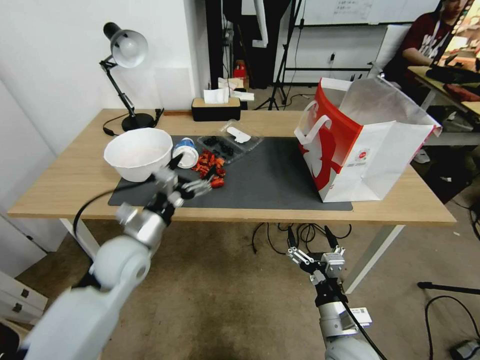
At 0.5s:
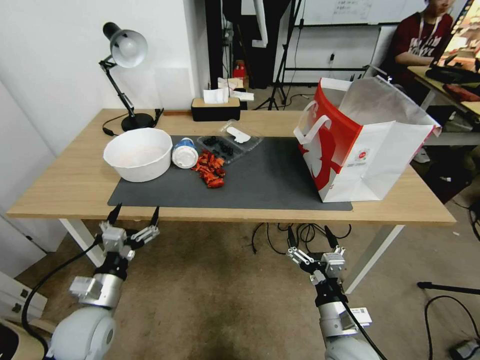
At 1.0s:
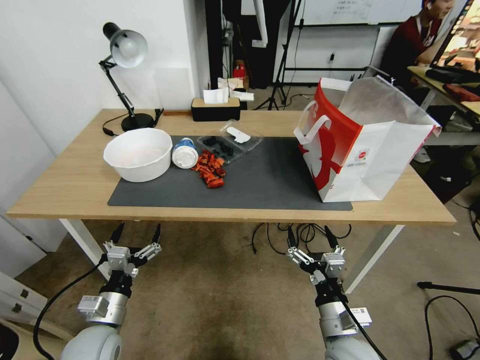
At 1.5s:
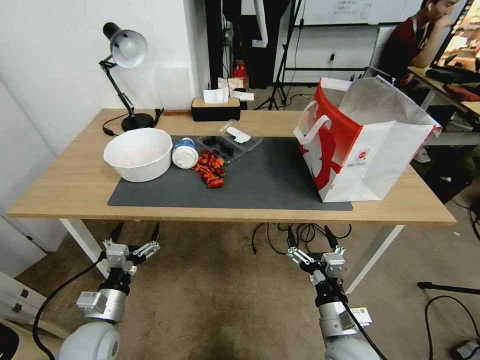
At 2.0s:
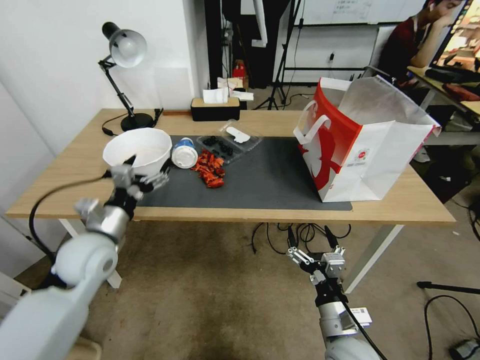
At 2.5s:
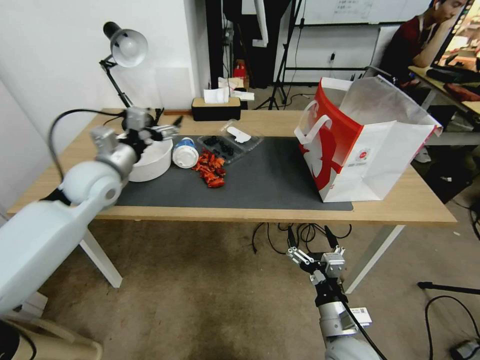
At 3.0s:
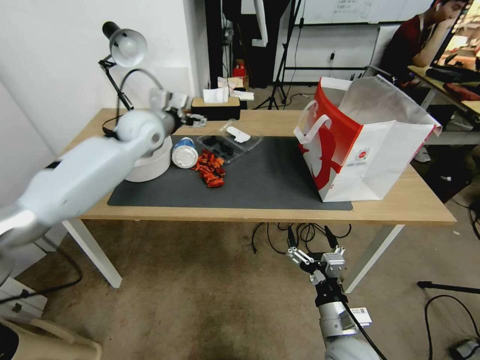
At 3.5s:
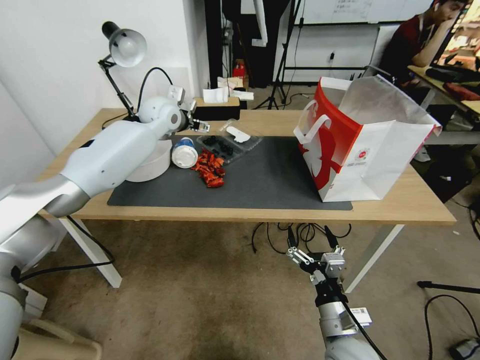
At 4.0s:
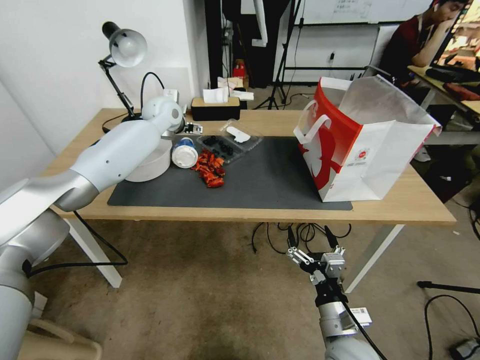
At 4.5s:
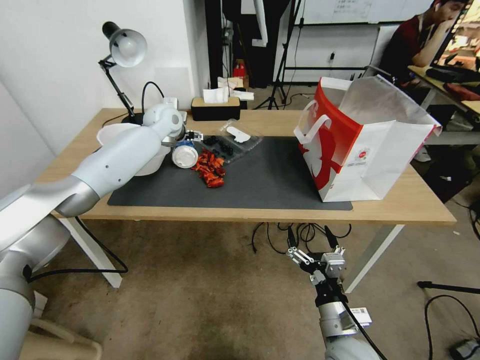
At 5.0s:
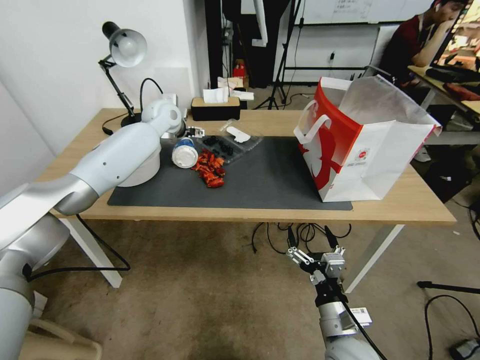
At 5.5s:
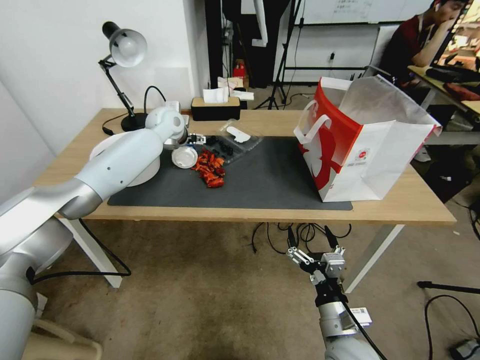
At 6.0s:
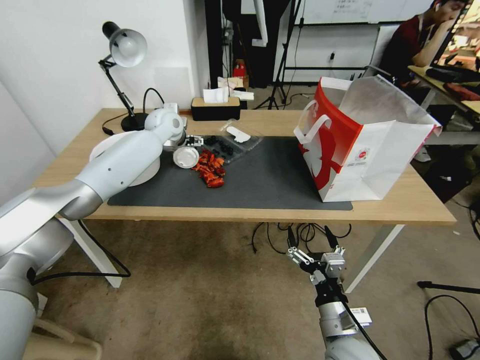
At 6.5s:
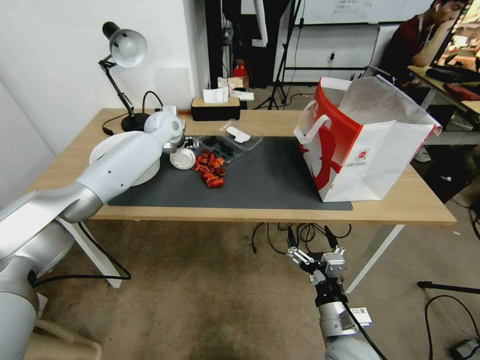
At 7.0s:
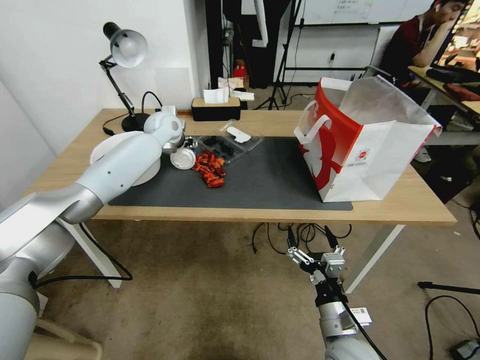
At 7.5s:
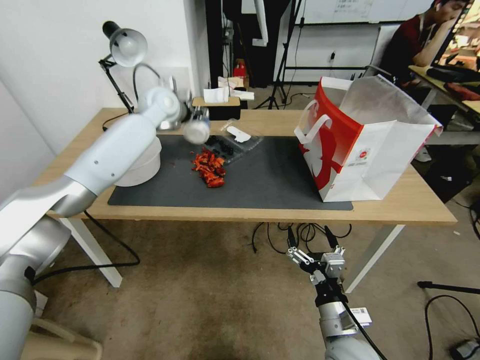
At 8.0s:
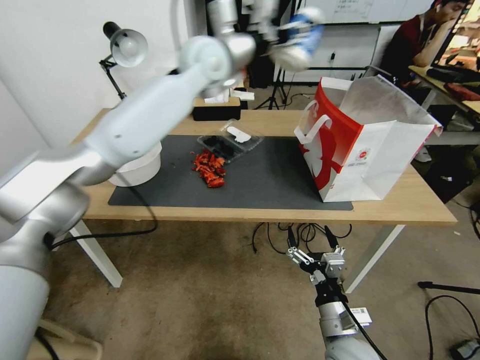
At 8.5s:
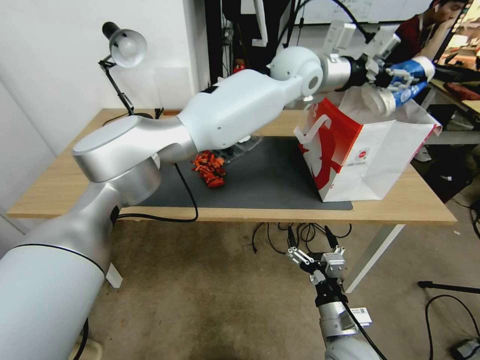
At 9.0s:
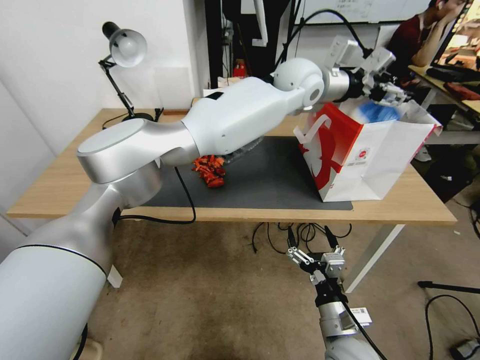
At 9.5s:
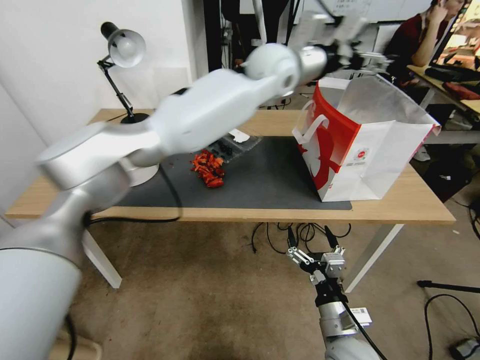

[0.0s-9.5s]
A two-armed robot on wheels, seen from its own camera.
0.0s to 2.0s: The left gripper goes approximately 5 cm to the left, and reaches some 10 cm downward, then returns.
2.0s to 4.0s: The left gripper goes some 35 cm forward and upward.
4.0s to 5.5s: The grippers stay close to where they were, moving slightly.
5.5s to 7.5s: The left gripper goes roughly 10 cm upward, and closes up.
7.5s to 9.5s: The left gripper goes some 25 cm to the right, and opens its fingers.

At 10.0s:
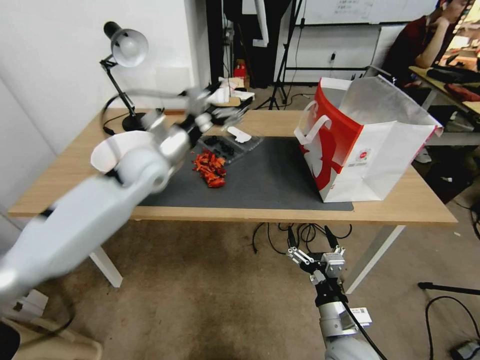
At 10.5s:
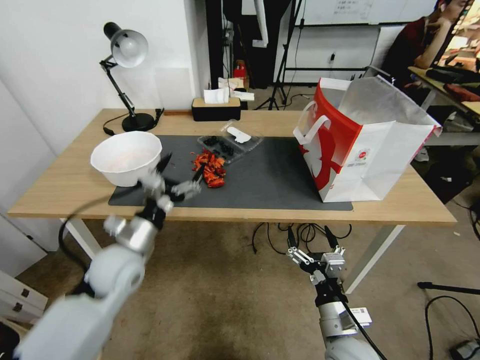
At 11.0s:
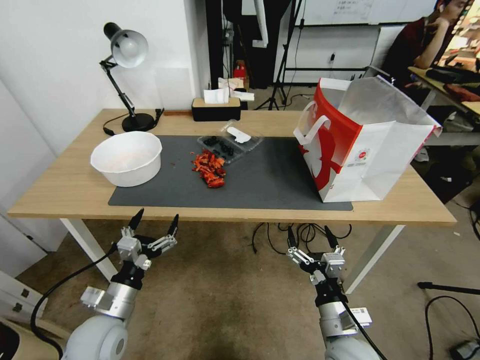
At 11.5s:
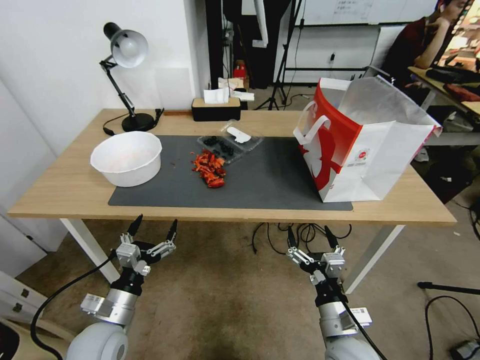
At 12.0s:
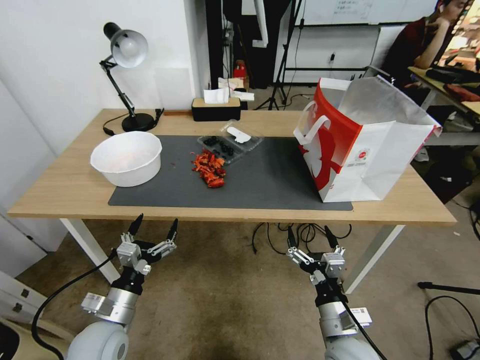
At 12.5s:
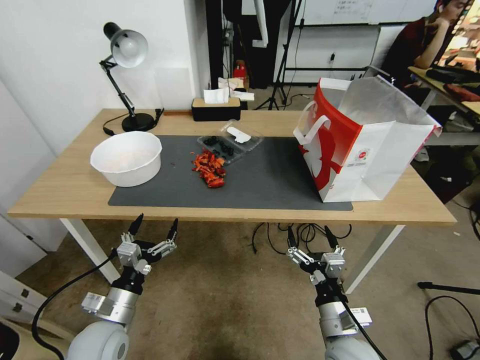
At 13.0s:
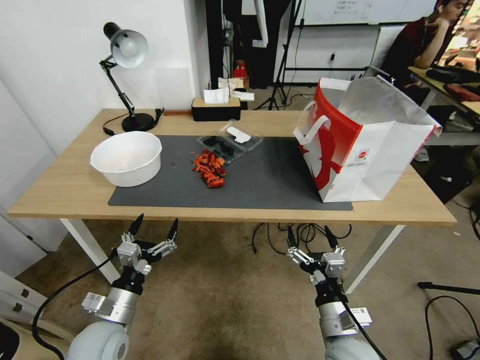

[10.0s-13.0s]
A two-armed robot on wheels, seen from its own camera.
10.0s to 11.5s: The left gripper heads backward and downward, covering approximately 35 cm.
11.5s to 13.0s: Both grippers stay put.

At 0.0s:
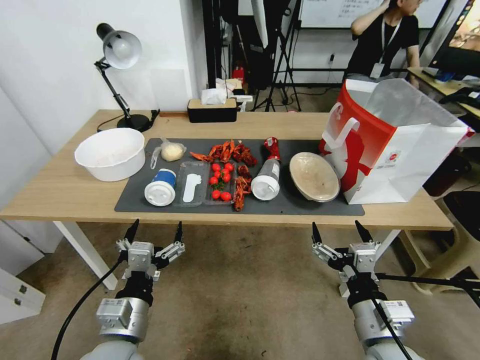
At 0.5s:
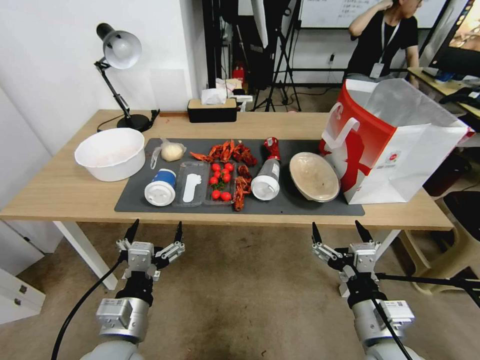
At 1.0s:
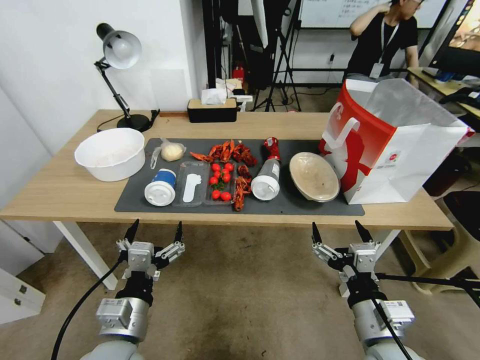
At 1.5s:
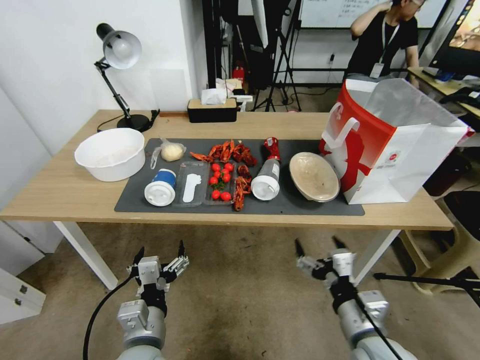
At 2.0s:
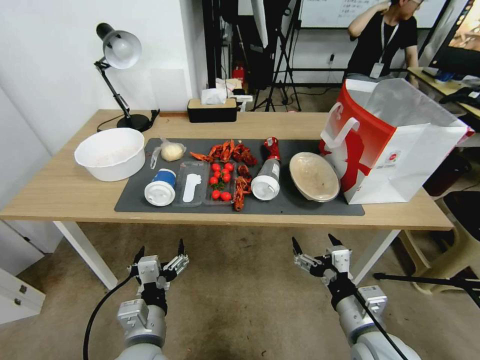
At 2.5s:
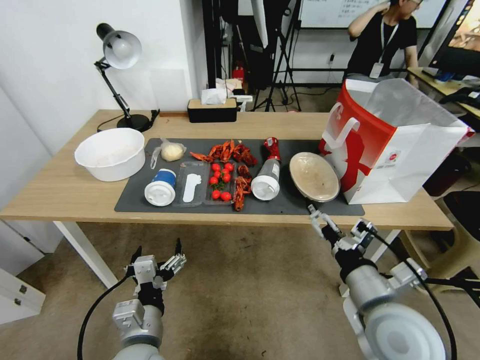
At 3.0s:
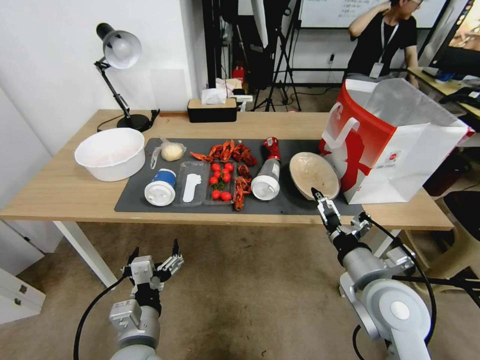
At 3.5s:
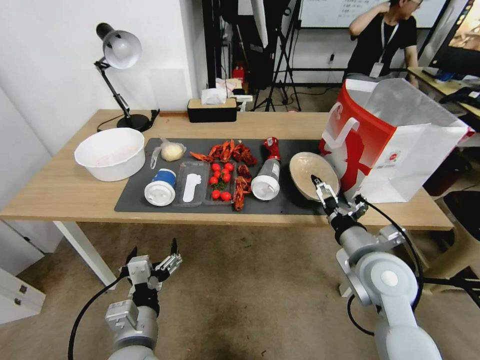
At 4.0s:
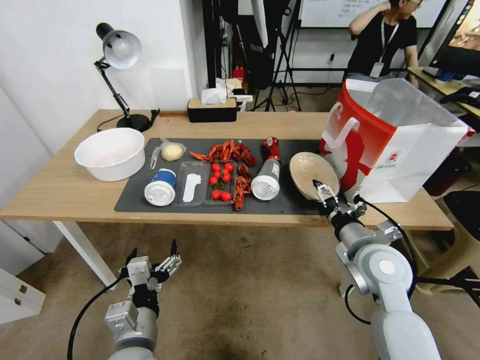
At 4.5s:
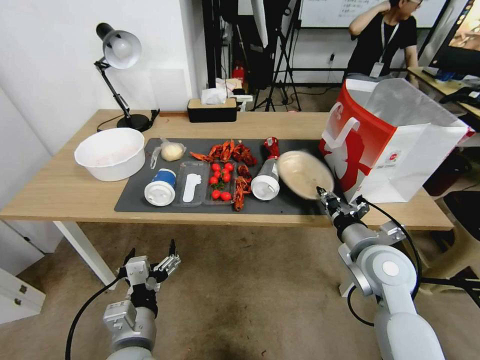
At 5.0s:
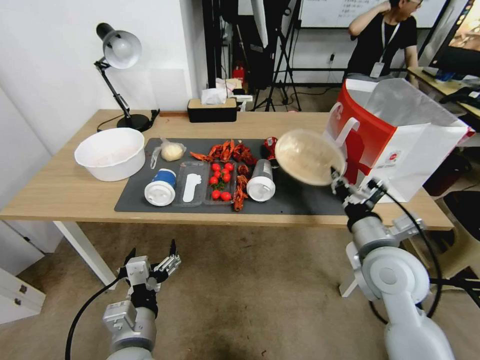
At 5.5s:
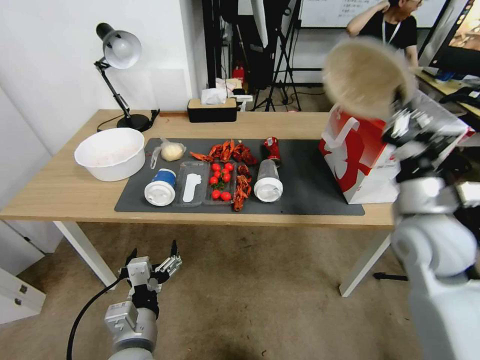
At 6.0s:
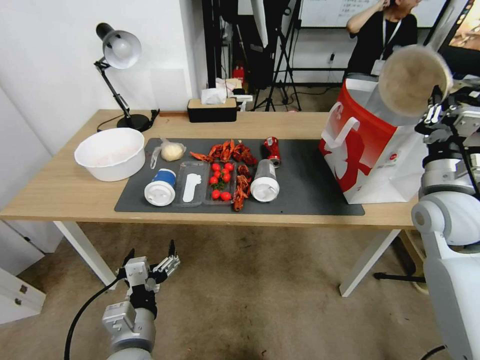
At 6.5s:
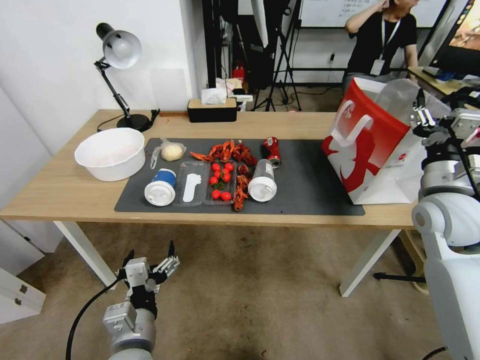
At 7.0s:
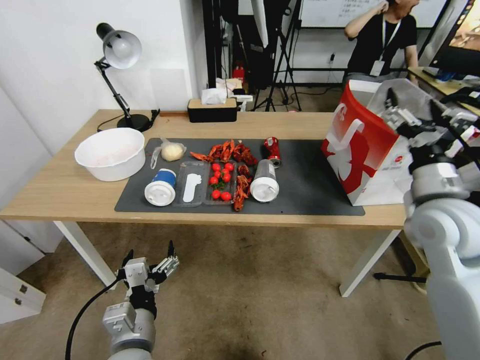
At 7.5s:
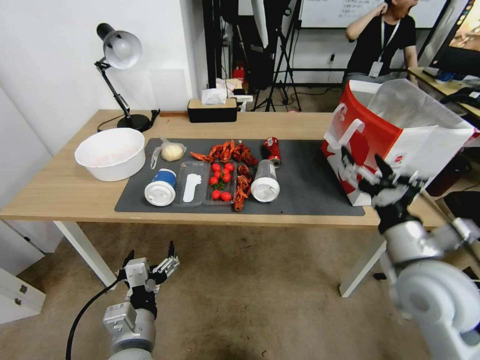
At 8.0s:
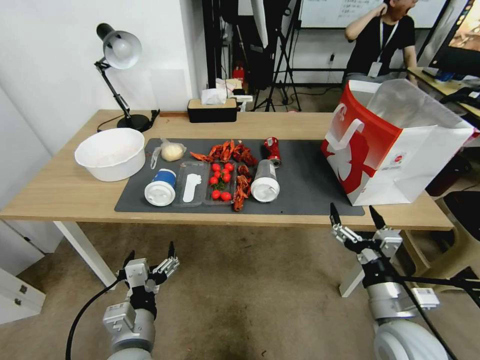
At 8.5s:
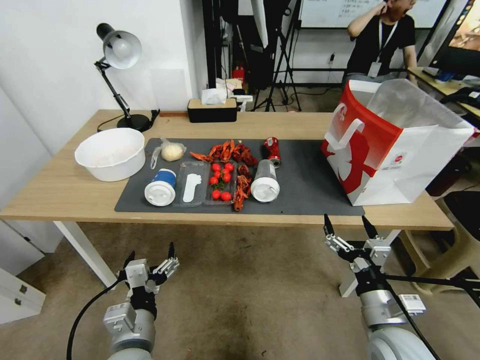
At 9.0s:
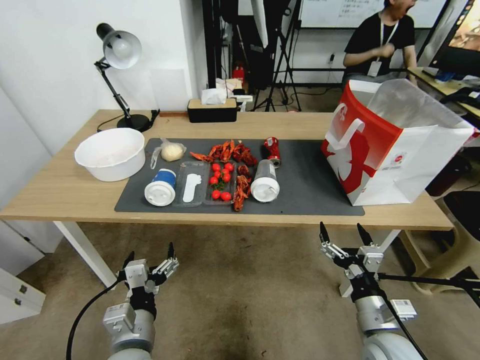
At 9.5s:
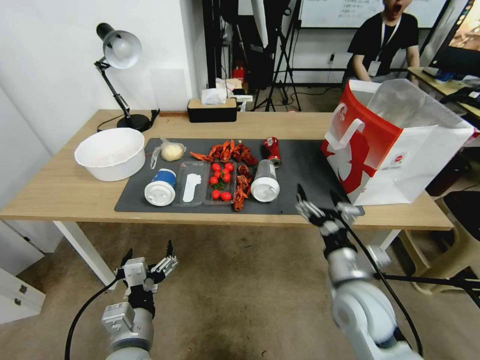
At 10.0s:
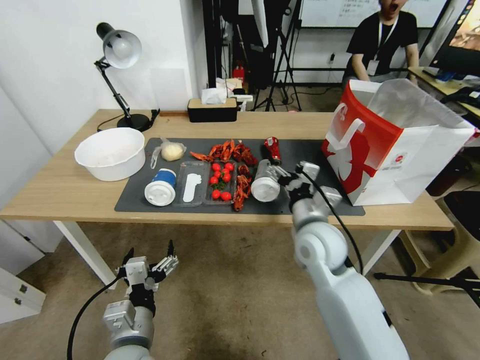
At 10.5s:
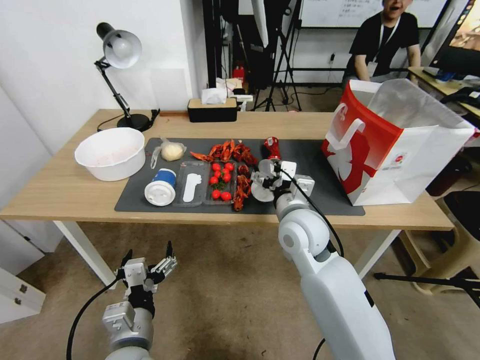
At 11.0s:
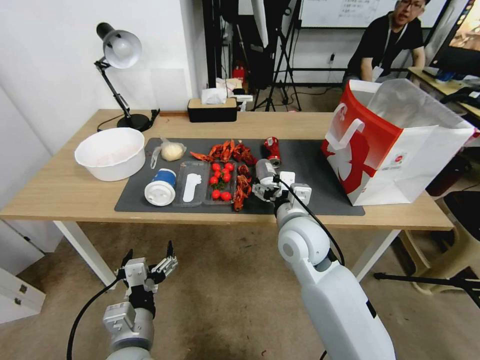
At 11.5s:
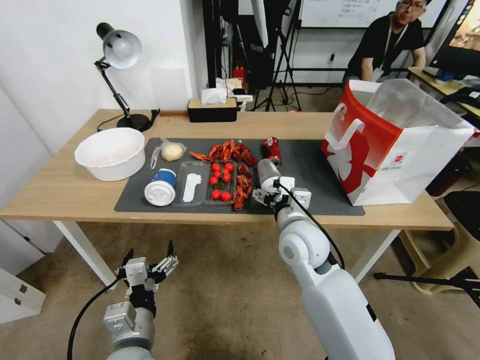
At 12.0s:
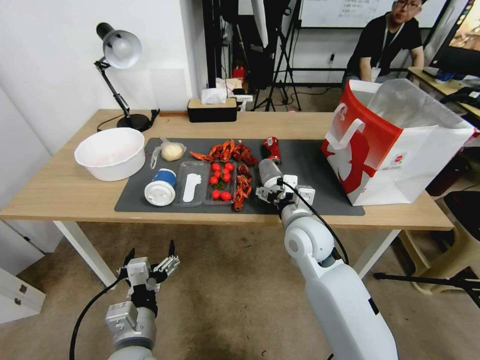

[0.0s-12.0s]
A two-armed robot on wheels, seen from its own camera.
2.0s to 4.0s: The right gripper goes about 15 cm forward and upward.
4.0s to 6.0s: The right gripper moves to the right, upward and forward, about 15 cm, and closes.
6.0s to 8.0s: The right gripper travels backward, downward and to the left by approximately 25 cm, and opens.
8.0s to 10.0s: The right gripper is displaced forward and to the left by some 20 cm.

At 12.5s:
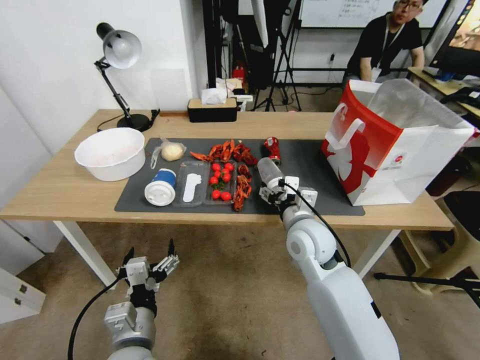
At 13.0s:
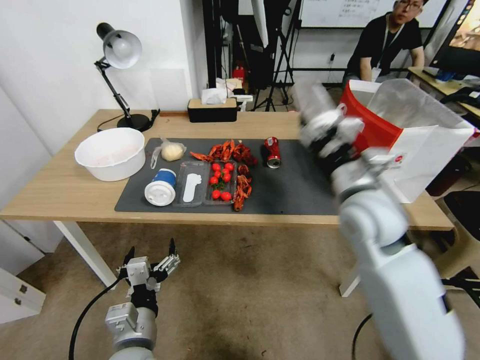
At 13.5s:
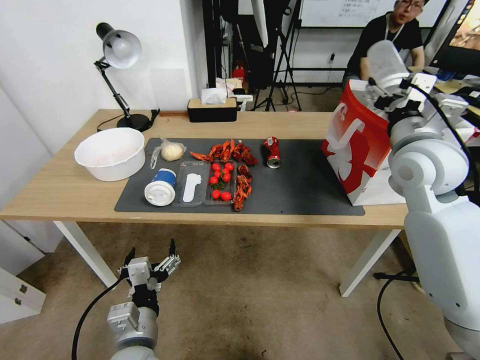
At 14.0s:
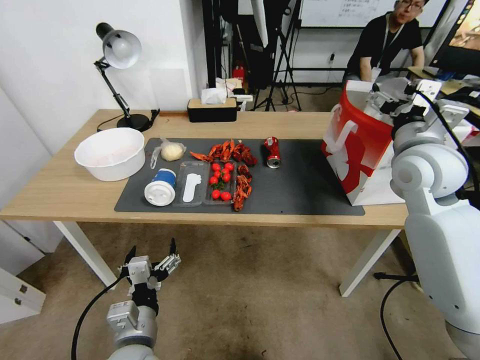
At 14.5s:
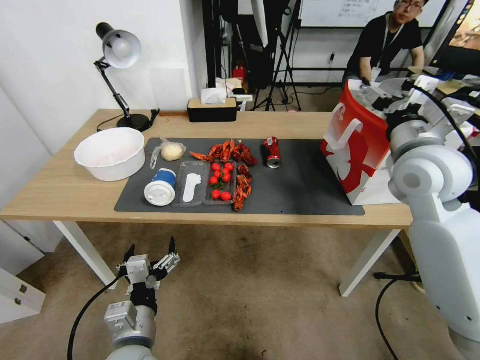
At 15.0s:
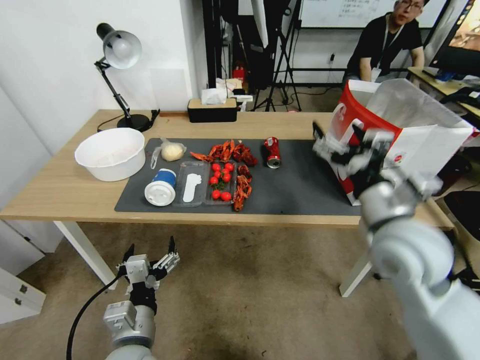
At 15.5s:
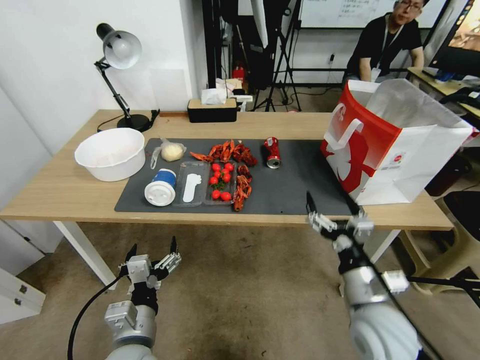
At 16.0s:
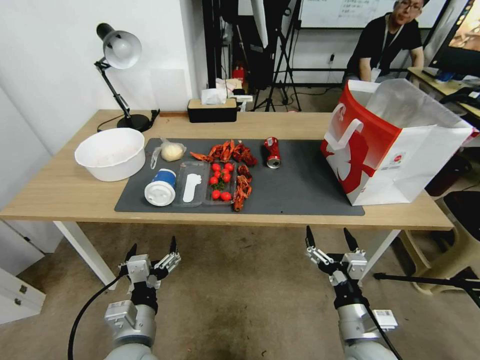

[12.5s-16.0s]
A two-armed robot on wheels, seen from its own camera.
12.5s to 14.5s: The right gripper shifts approximately 25 cm upward and to the right.
14.5s to 16.0s: The right gripper heads downward and backward, covering about 35 cm.
